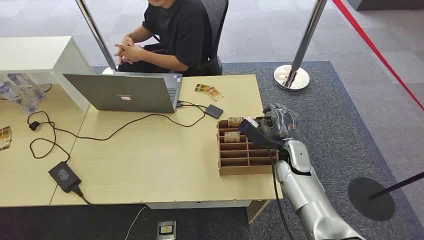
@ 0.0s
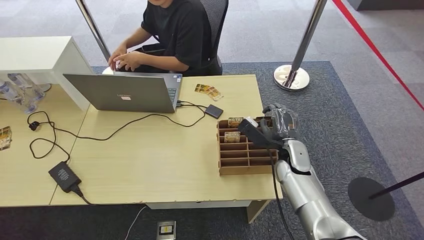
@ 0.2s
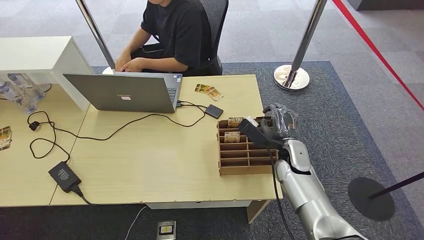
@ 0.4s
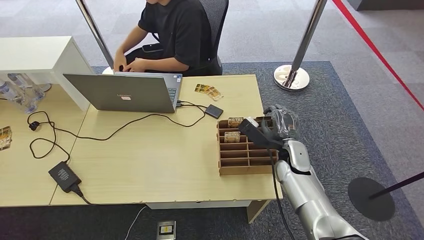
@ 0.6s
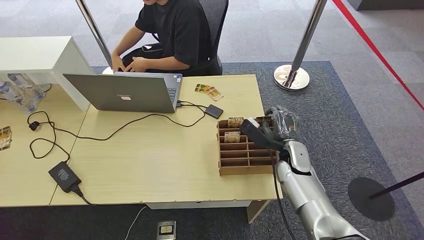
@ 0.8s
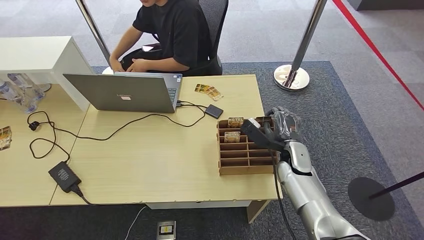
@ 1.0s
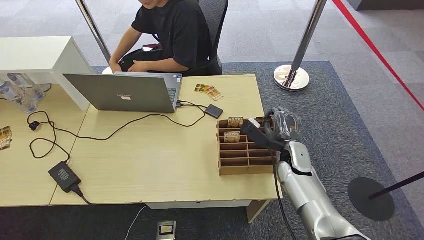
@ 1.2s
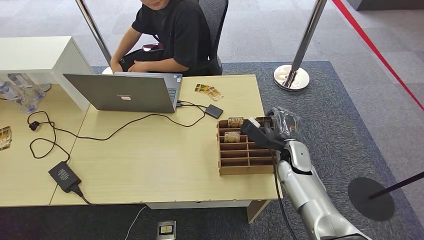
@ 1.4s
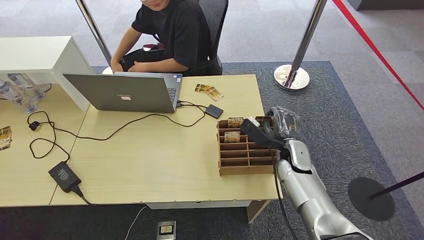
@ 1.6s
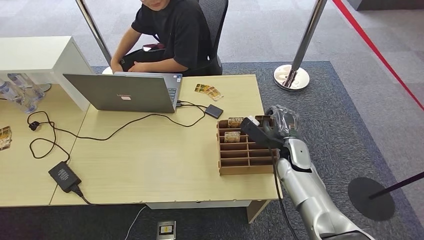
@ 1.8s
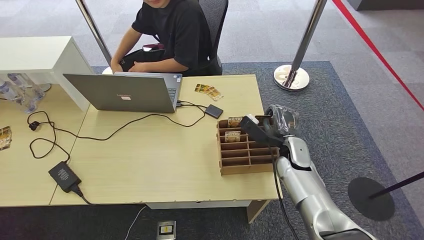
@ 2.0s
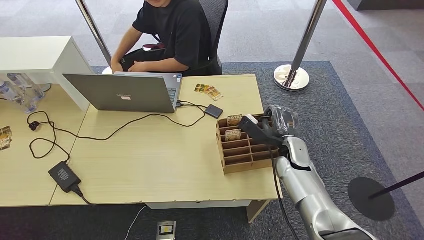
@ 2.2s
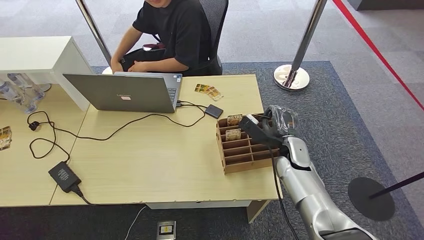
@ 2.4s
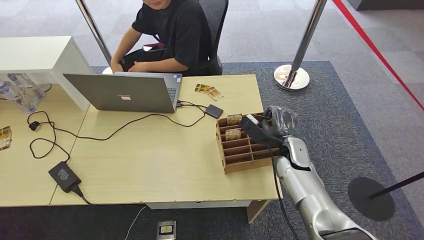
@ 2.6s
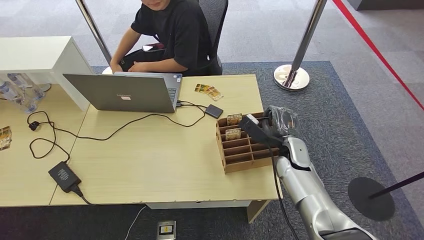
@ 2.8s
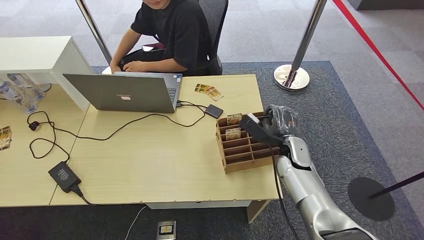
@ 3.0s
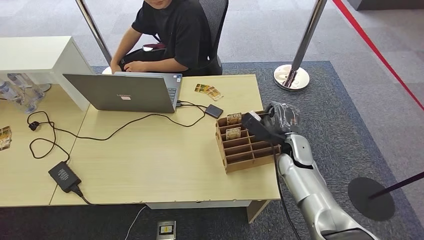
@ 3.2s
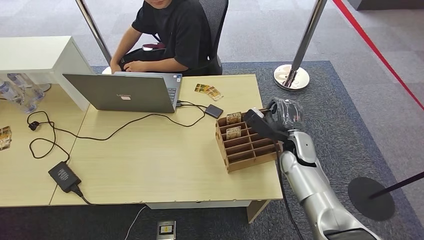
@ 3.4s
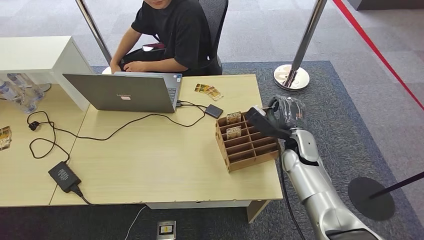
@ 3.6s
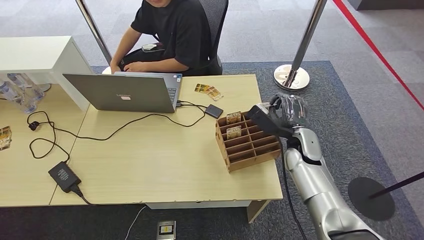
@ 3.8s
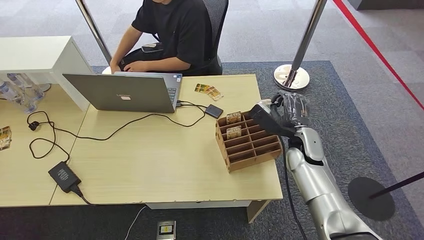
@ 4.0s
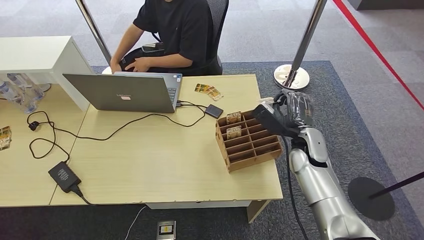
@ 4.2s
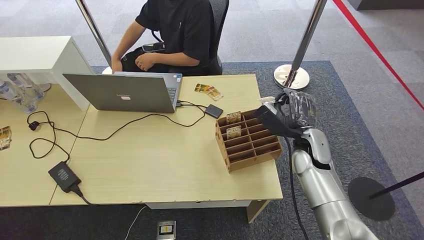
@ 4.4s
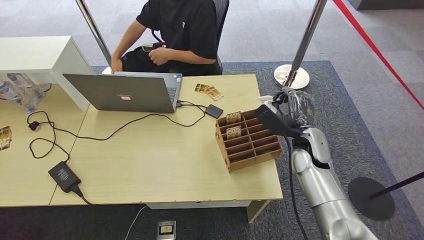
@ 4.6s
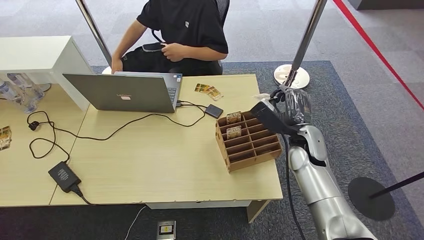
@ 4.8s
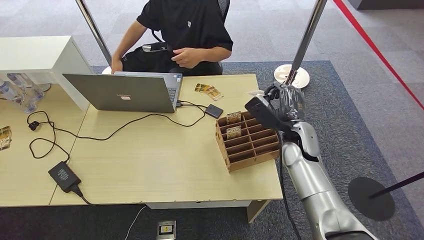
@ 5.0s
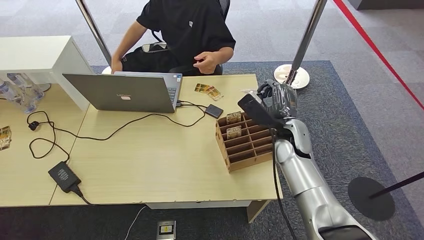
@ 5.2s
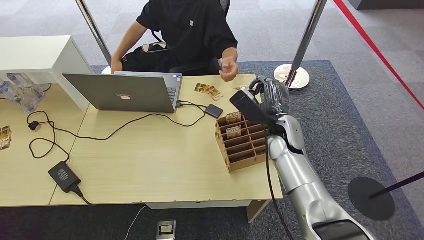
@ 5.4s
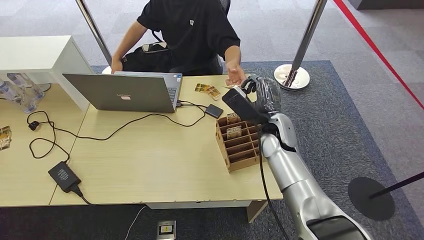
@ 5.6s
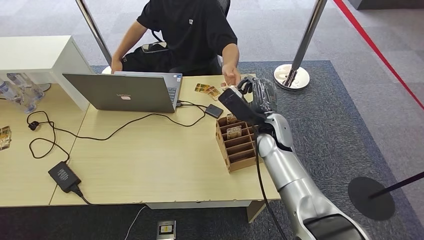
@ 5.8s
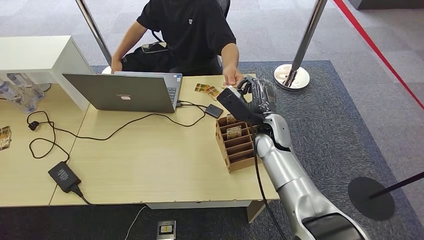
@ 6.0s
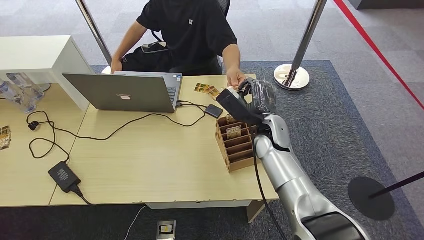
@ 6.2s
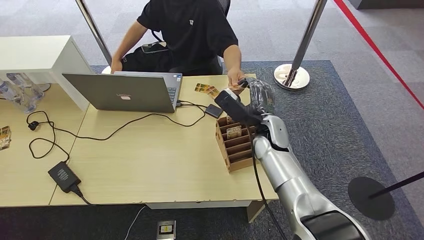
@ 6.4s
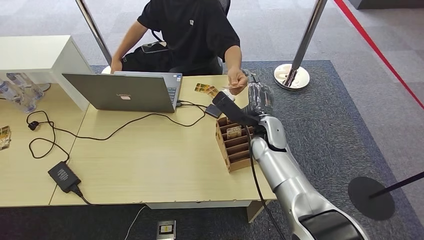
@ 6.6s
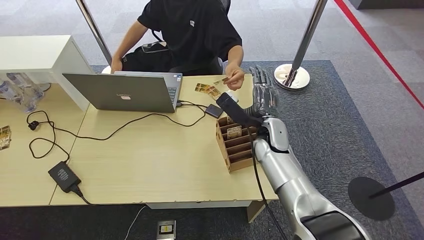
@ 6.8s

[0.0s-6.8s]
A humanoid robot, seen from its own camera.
Step, 0.0s to 4.4s: Pick up the key card from the card box.
Step, 4.6s to 6.8s: Hand the key card to the target.
1.4s to 2.8s: Both hands stay about where they are.
2.8s to 4.0s: The hands move only a little.
4.0s to 5.4s: The right hand goes approximately 5 cm to the left.
5.4s to 6.8s: The hands stay close to where they were, moving slightly.
